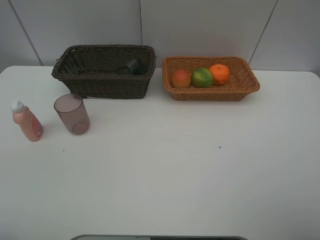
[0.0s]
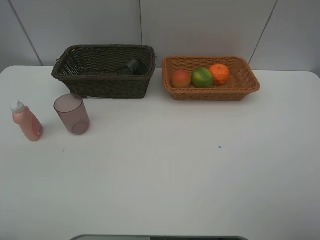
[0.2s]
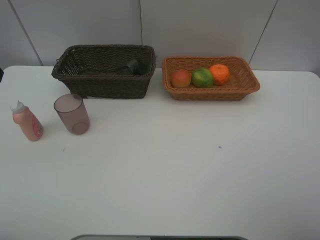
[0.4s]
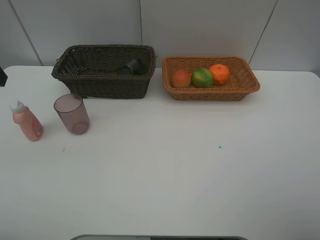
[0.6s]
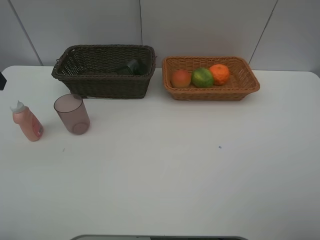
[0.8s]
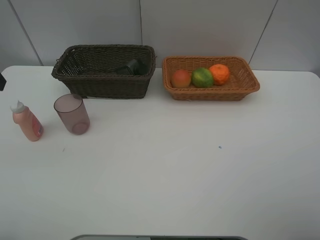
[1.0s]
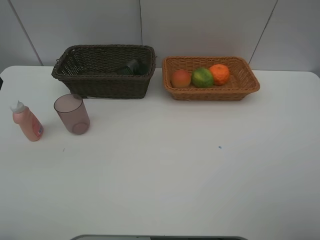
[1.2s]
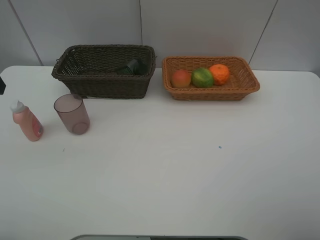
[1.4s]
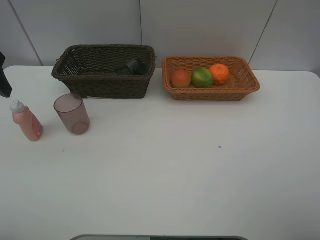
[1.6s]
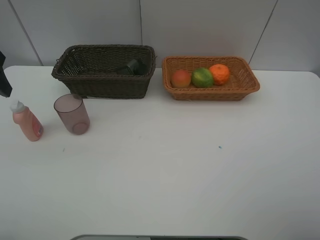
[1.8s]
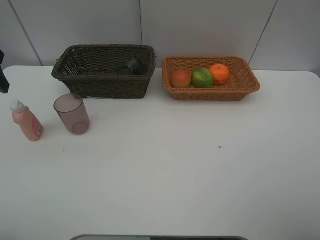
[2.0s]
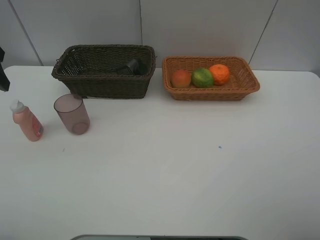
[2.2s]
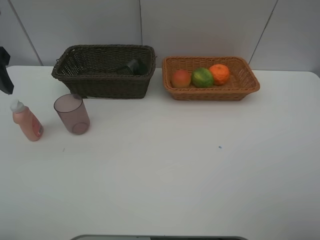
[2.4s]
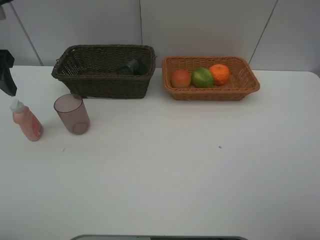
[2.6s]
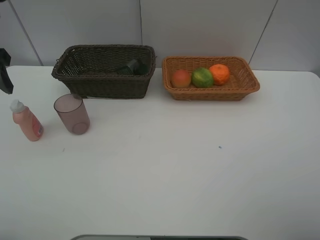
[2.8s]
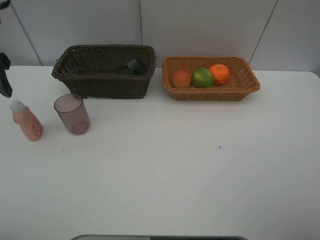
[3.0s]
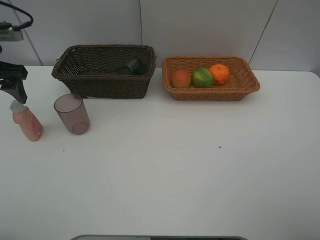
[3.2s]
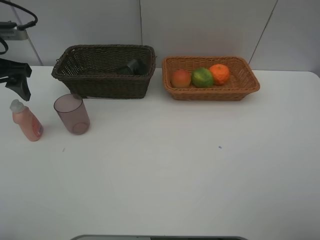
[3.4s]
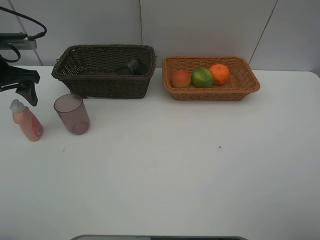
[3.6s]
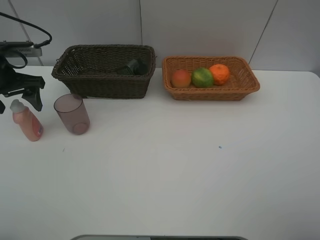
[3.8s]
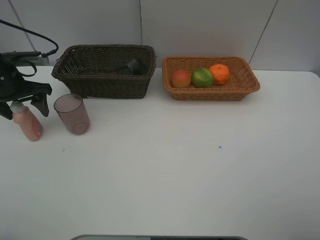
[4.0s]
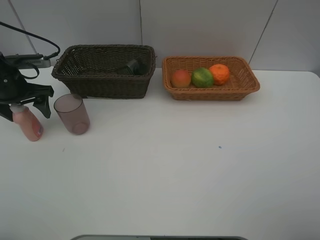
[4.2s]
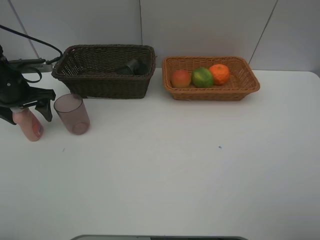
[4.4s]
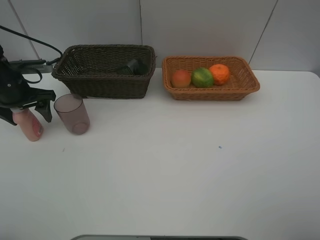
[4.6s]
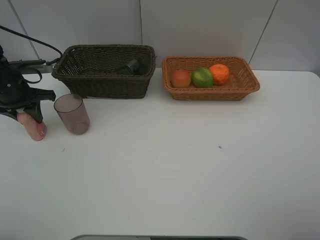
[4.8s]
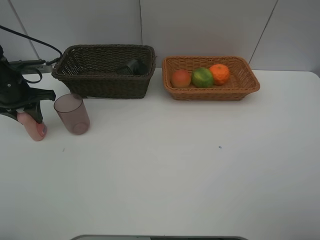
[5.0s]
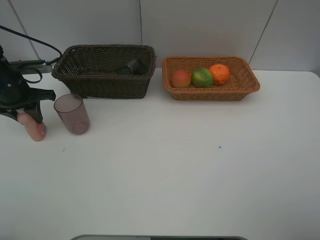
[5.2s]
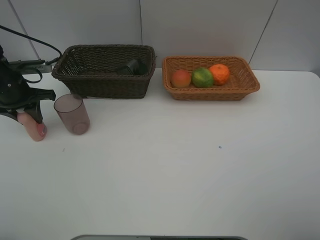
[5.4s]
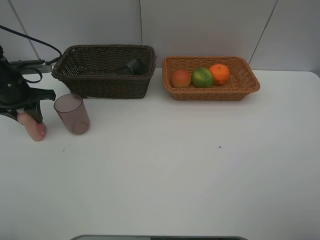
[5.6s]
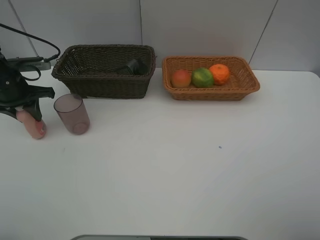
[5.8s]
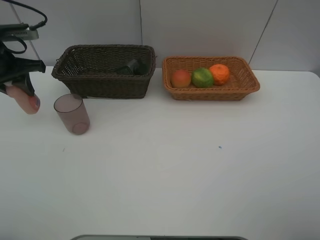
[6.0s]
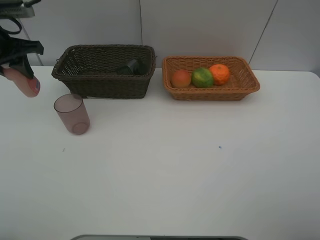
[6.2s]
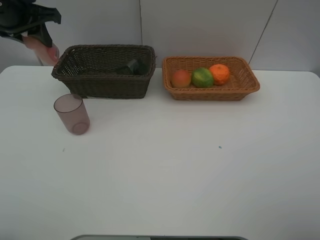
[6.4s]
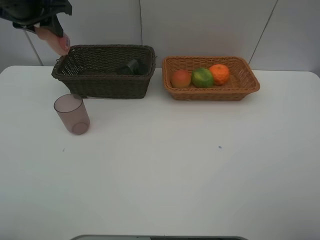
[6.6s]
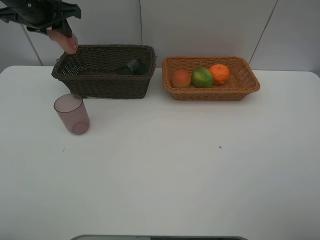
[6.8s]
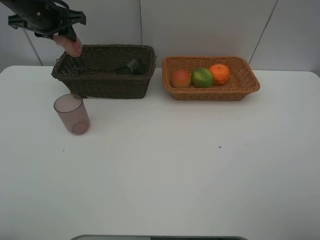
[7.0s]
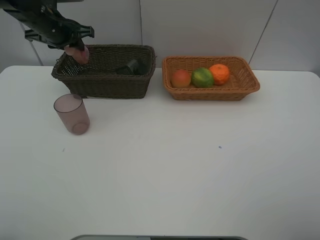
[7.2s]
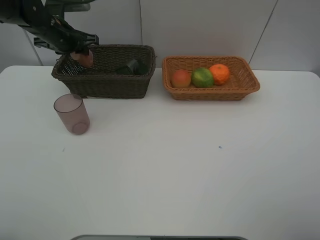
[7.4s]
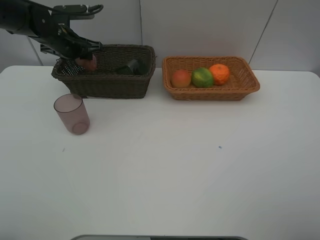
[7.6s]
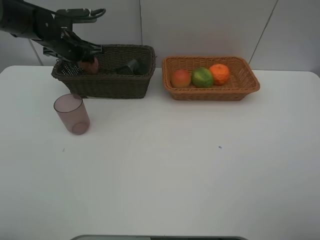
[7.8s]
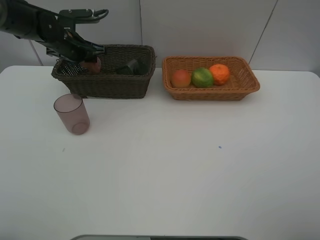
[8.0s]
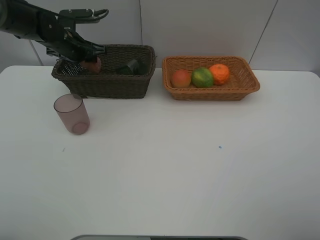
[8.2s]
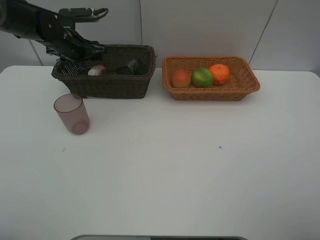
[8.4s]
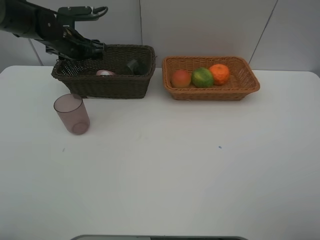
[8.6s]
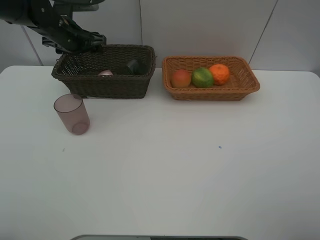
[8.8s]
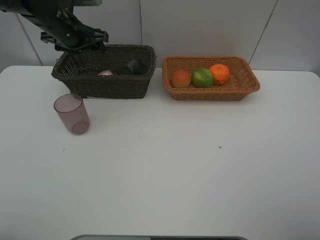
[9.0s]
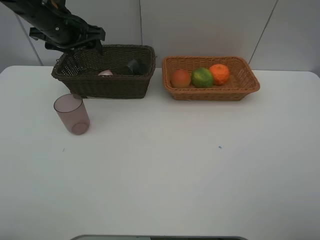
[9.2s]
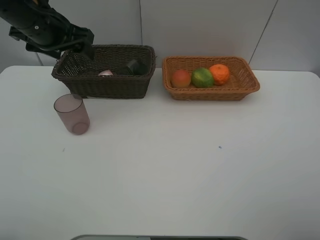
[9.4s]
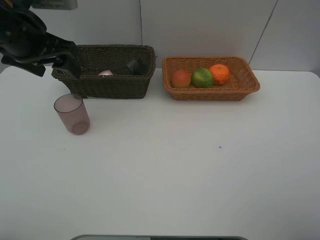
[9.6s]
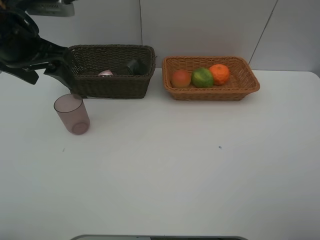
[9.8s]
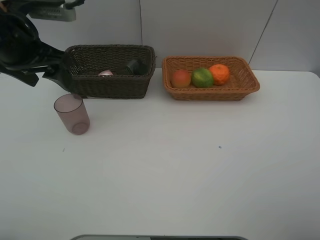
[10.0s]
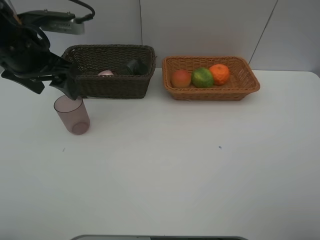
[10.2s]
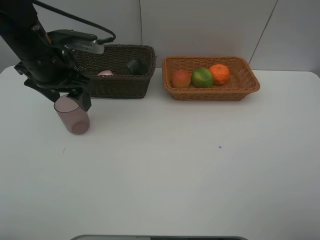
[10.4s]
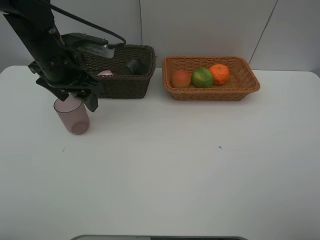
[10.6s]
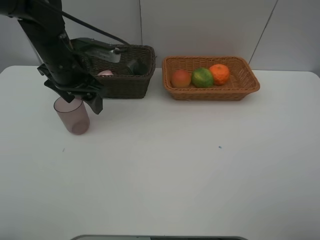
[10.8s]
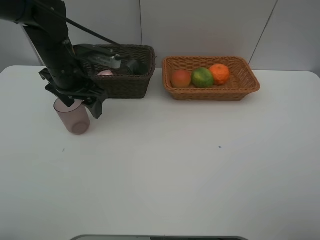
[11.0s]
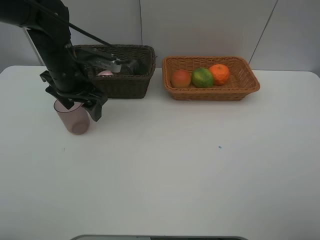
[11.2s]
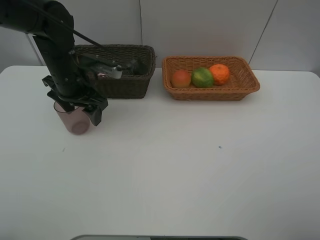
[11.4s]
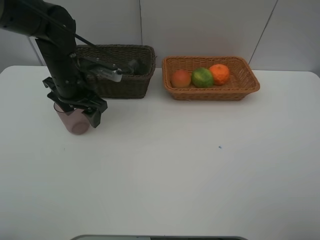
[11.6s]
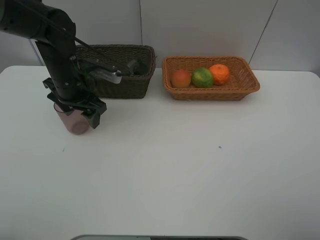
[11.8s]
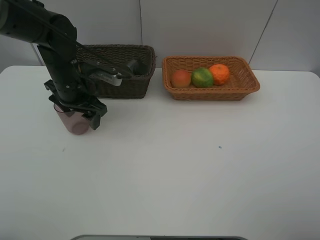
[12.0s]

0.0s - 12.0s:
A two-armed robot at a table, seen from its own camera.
Task of the whole recording: place multiple objects separately in different baskets.
3.0s - 4.4s: The left gripper is displaced downward and forward by some 15 cm.
4.4s - 6.0s: The left gripper moves upward, some 5 cm, and closes.
6.0s - 7.6s: The left gripper goes approximately 15 cm forward and to the right.
7.6s - 9.0s: The left gripper moves upward, some 5 cm, and opens up.
9.0s - 10.4s: The left gripper goes some 10 cm backward.
10.4s - 12.0s: The left gripper moves downward, approximately 5 cm.

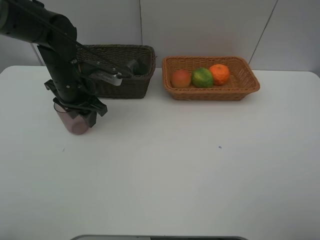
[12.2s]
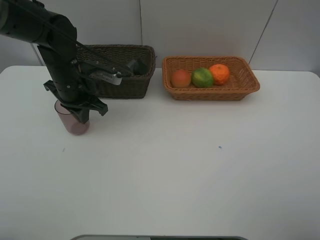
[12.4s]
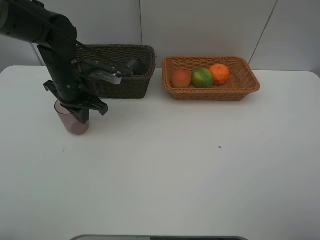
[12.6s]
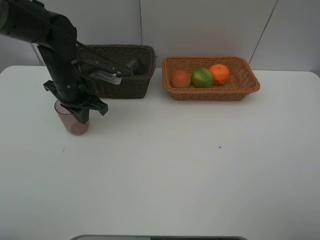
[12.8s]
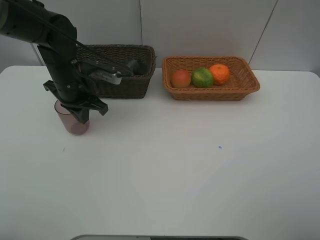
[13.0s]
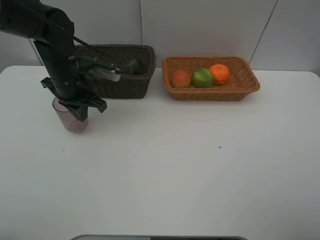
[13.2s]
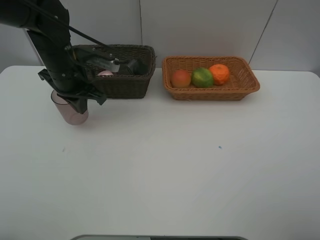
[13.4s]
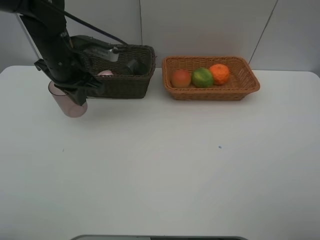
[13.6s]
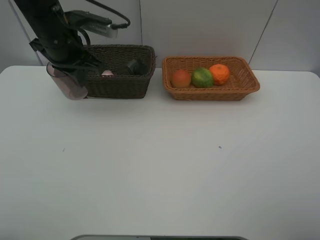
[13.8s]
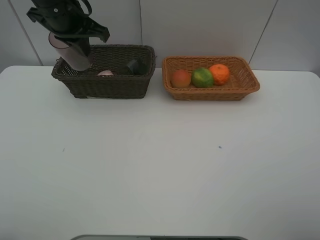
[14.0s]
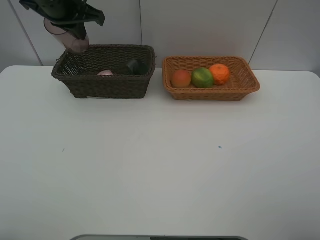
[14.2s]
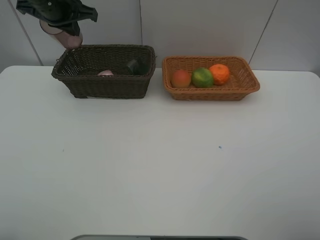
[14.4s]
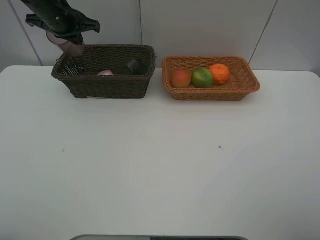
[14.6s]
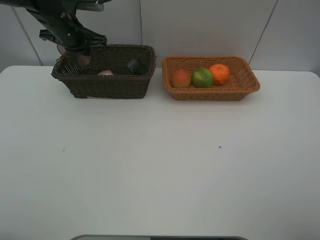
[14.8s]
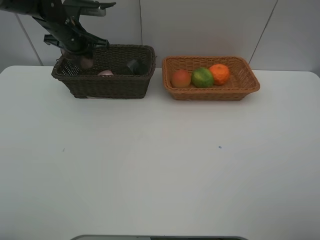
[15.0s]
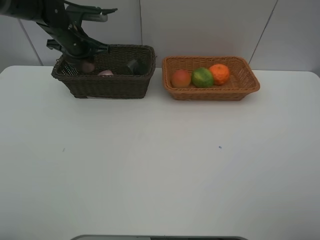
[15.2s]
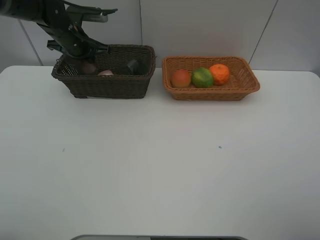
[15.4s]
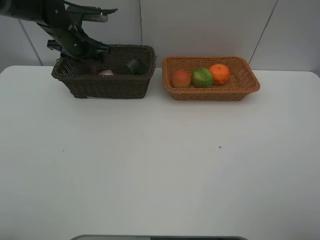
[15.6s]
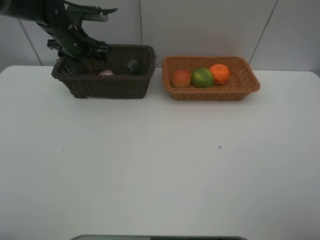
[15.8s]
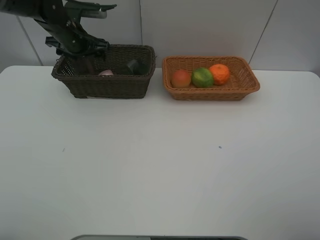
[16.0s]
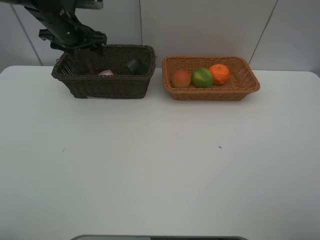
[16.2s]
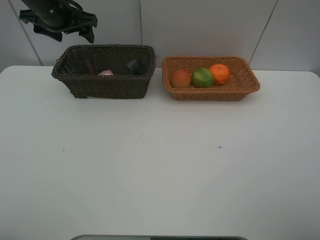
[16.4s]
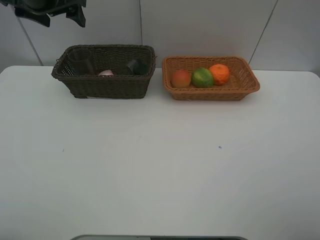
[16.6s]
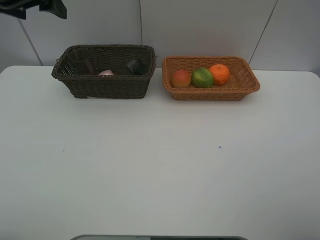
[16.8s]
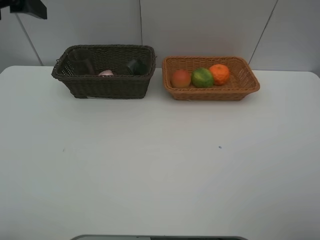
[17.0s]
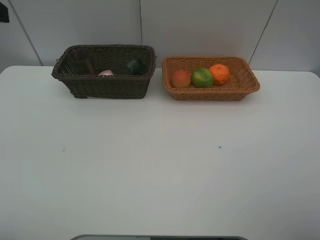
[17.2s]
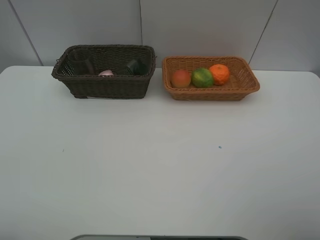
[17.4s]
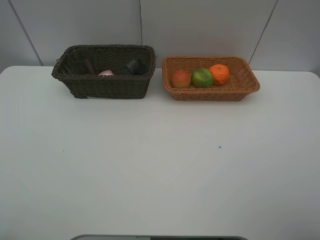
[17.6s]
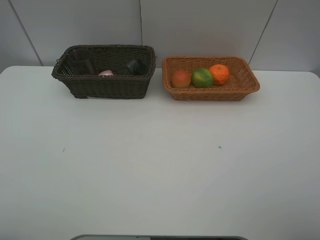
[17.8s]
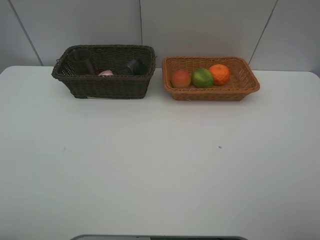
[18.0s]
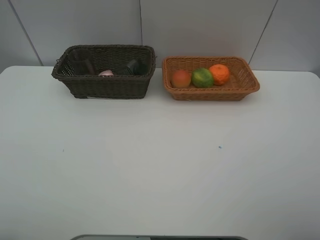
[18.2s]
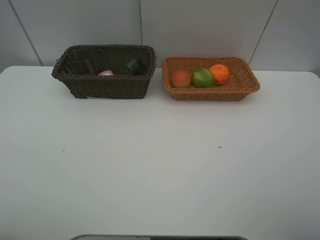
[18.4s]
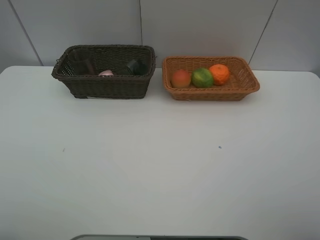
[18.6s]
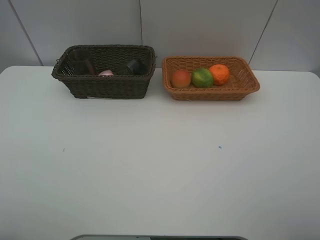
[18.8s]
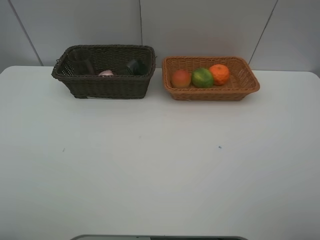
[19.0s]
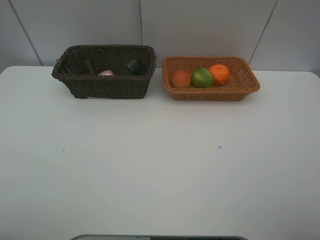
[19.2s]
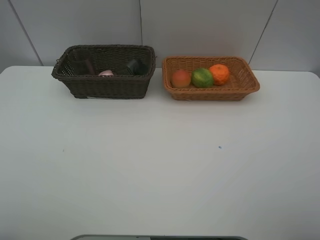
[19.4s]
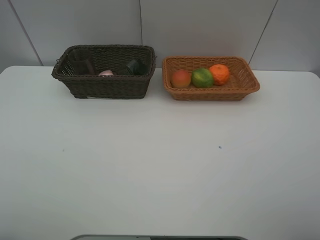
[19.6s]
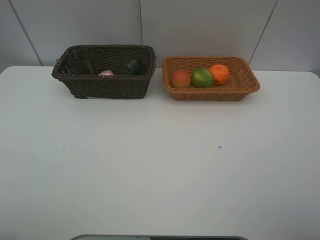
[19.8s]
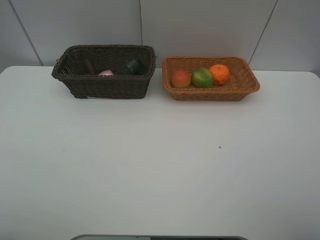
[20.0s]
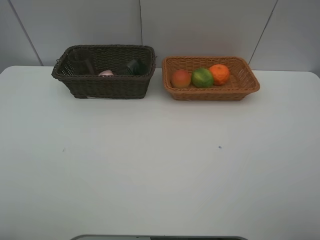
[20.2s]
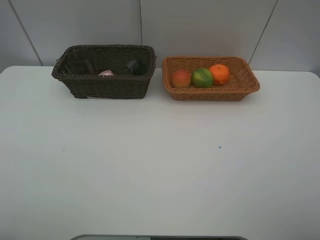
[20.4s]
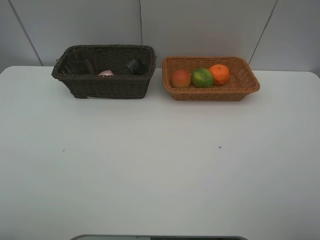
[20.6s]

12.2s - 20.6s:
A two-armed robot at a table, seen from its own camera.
Task of the whole recording: place multiple objects separately in different baskets.
12.2s - 13.6s: The left gripper travels upward by some 5 cm, and closes up.
13.6s - 15.0s: The left gripper is displaced forward by approximately 10 cm.
15.0s - 16.4s: The left gripper goes about 10 cm upward, and opens its fingers.
16.4s - 17.8s: The left gripper heads backward, covering roughly 40 cm.
